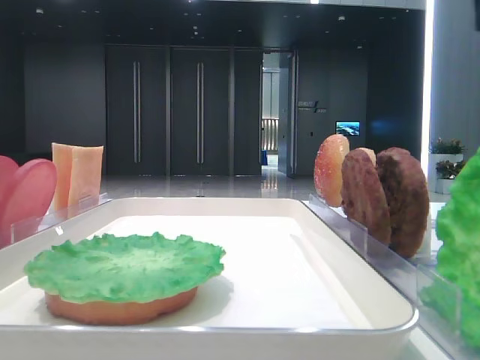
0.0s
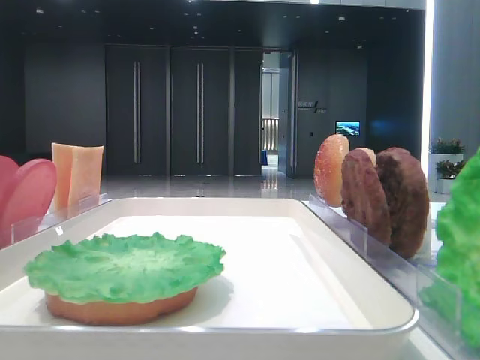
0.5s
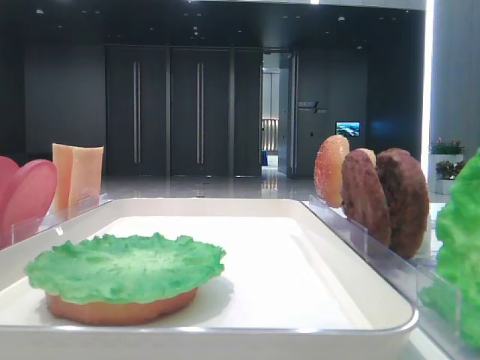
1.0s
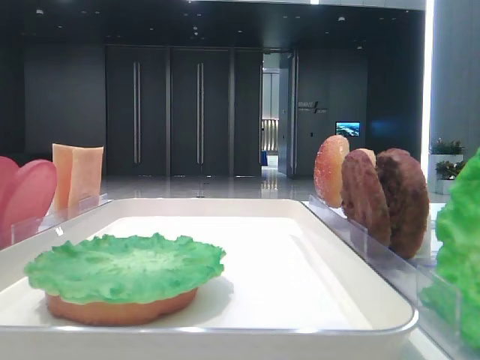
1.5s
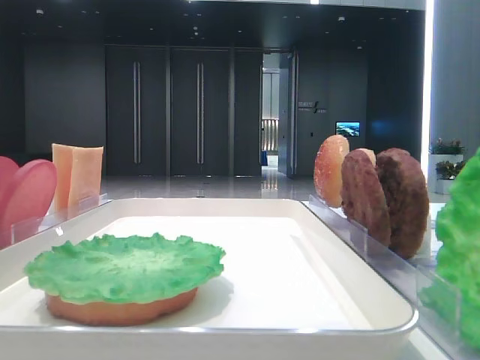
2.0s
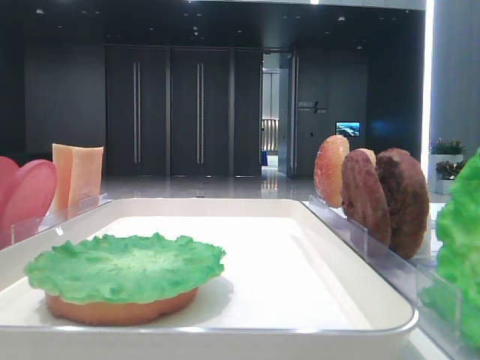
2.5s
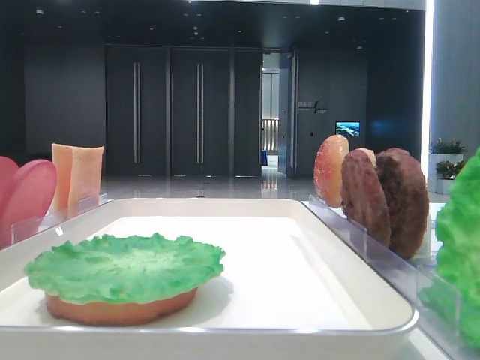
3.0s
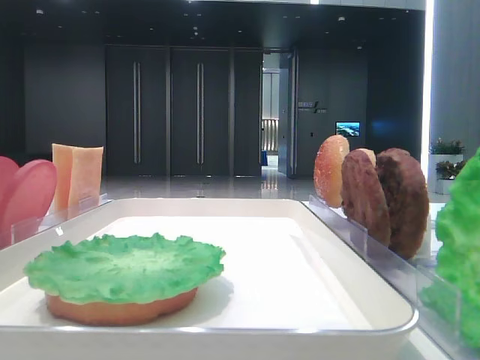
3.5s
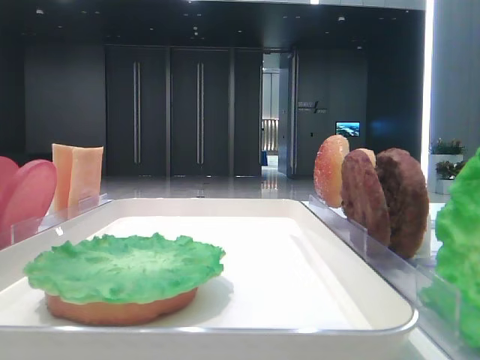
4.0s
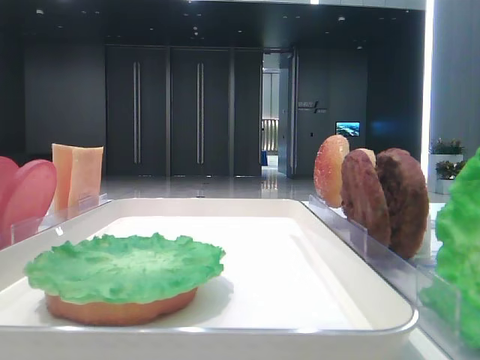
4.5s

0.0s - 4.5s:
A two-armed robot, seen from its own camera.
2.0s - 4.5s: Neither gripper changes place.

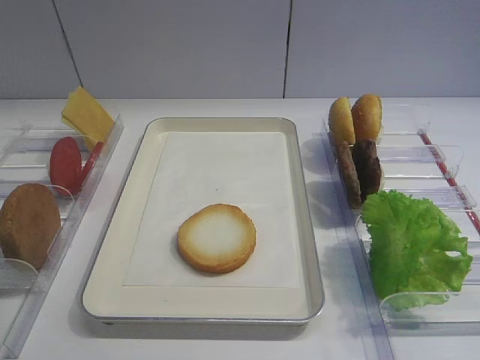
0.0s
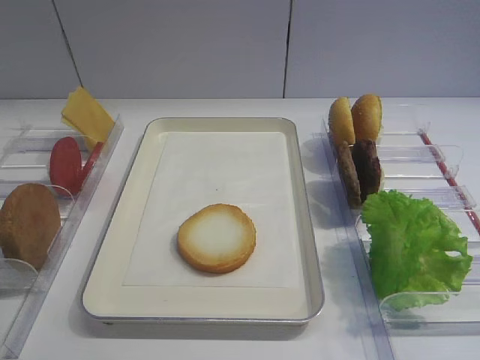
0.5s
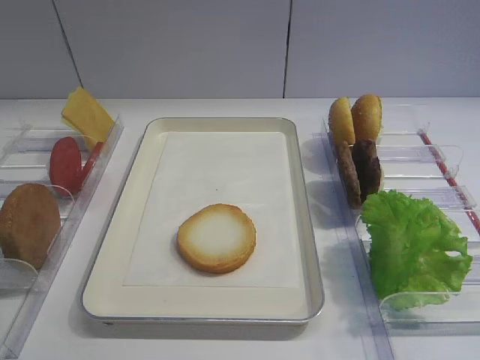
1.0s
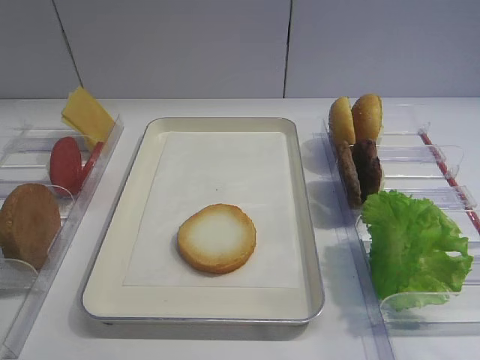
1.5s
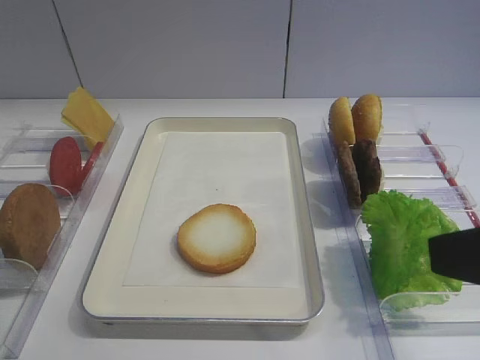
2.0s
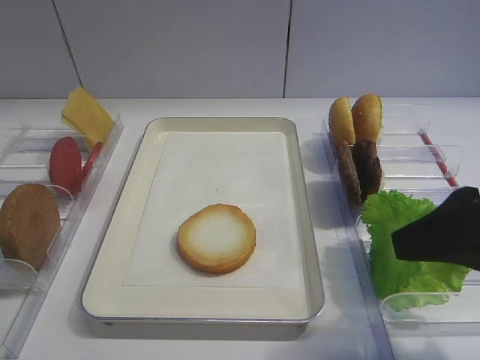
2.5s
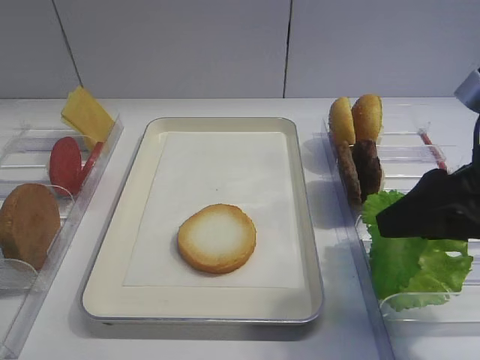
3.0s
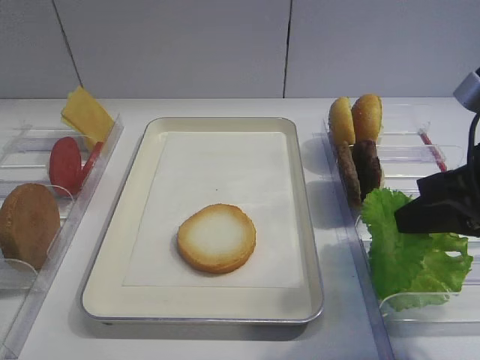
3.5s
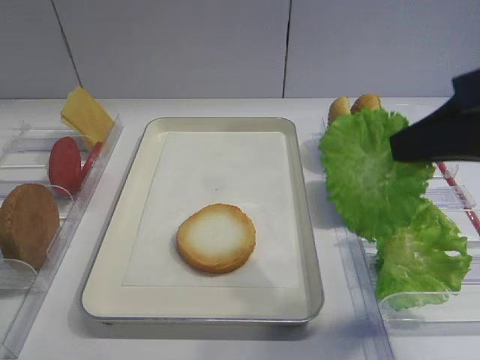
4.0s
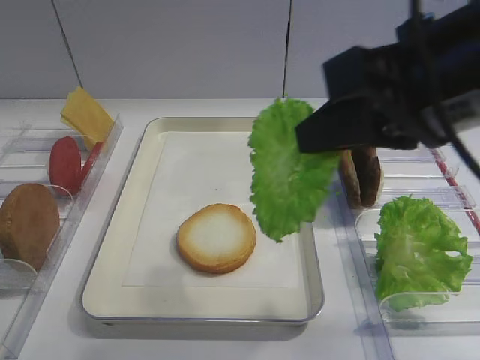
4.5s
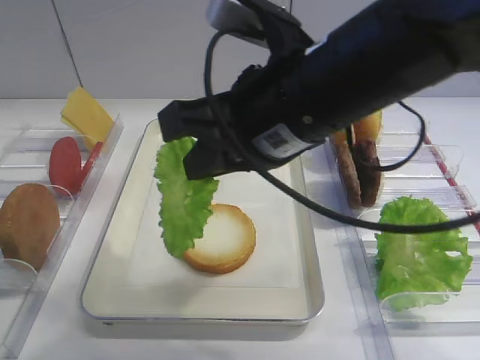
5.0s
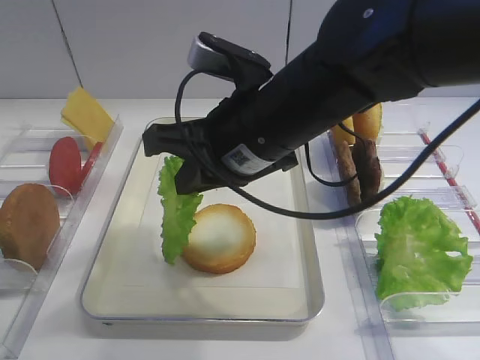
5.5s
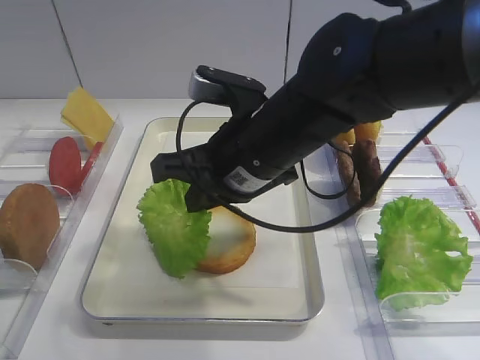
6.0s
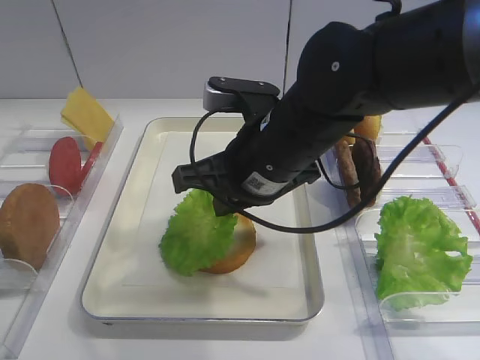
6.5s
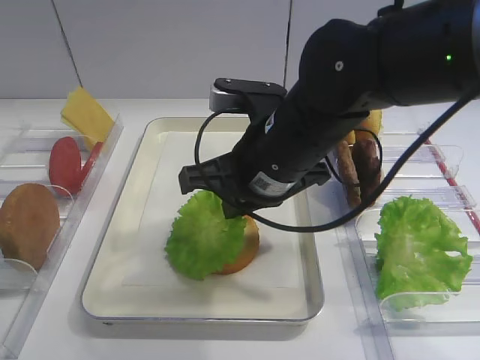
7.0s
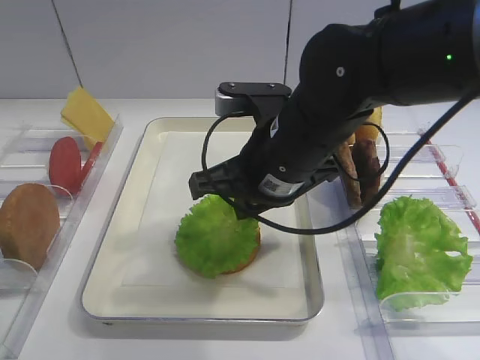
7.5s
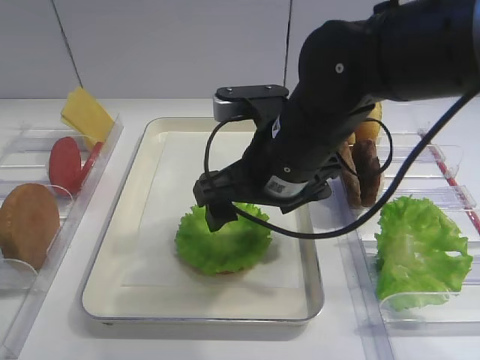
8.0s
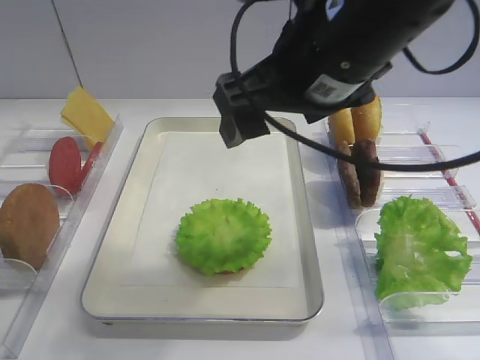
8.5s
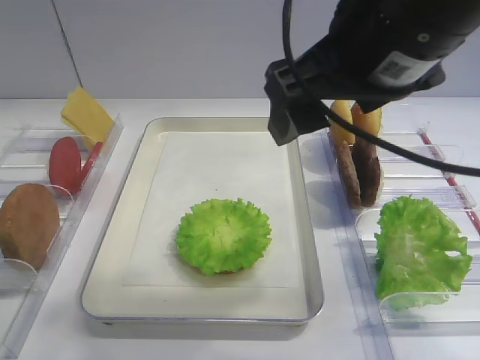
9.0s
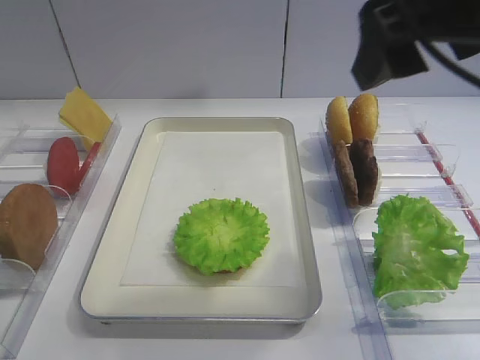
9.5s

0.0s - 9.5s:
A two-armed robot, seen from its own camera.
Step, 0.0s - 3.5s: Pick up the lettuce leaf with the right gripper.
Step, 4.0s - 8.0s: Place the lettuce leaf on the bread slice with the right gripper.
2.0s - 4.0s: The right gripper shifts approximately 10 cm forward, and closes up.
4.0s - 5.5s: The right gripper heads to the left, covering some 20 cm.
7.5s - 9.5s: The right gripper travels upward and to the right by some 20 cm, and opens its fingers.

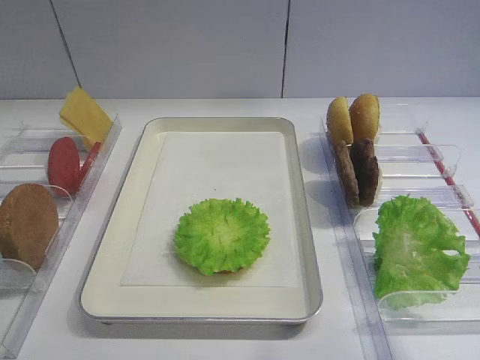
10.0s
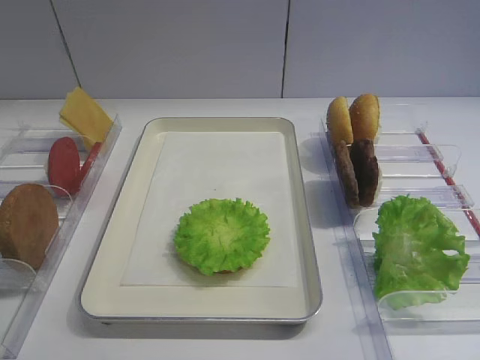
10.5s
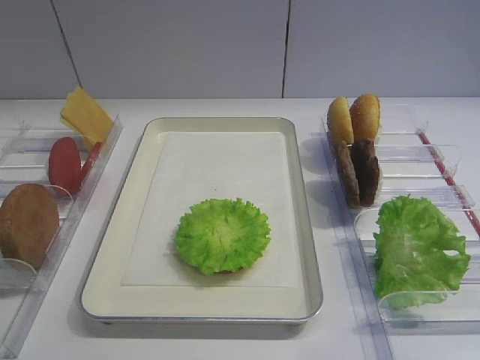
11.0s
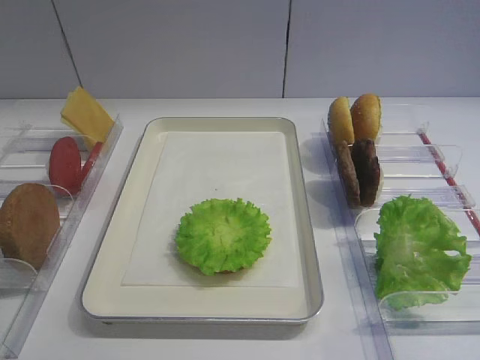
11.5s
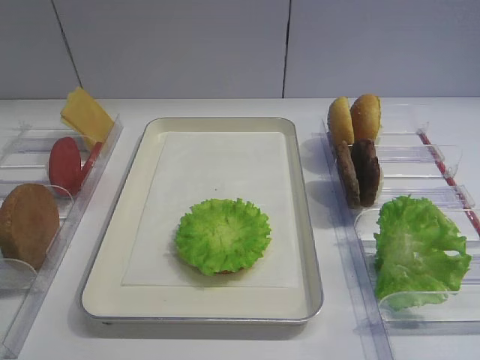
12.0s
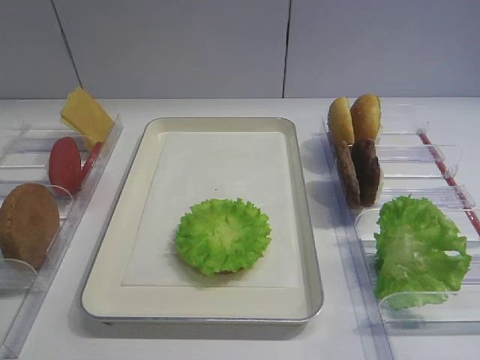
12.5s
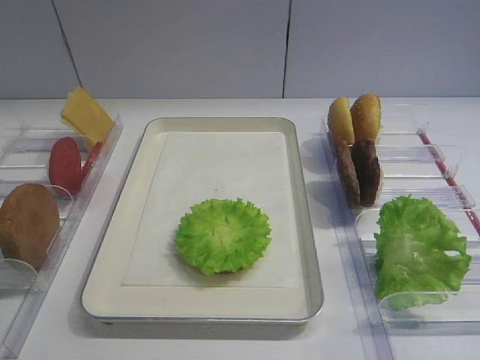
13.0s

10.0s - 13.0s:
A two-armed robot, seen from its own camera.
10.0s - 11.5s: The right gripper shifts approximately 20 cm downward and backward.
11.5s - 13.0s: Neither gripper changes place.
